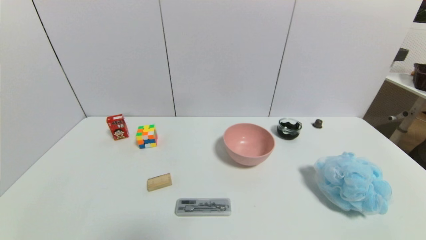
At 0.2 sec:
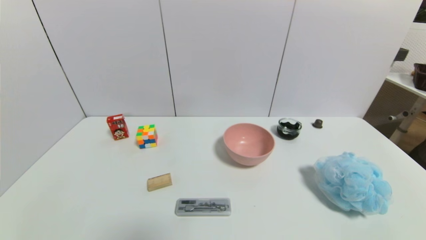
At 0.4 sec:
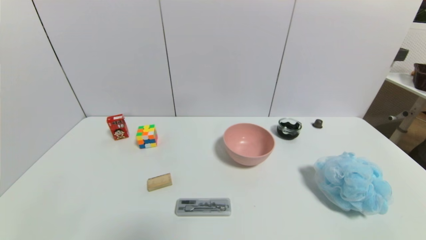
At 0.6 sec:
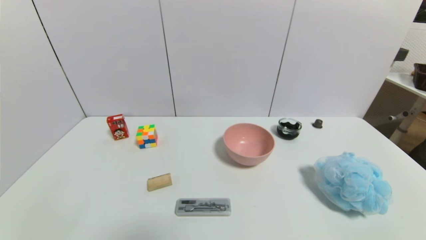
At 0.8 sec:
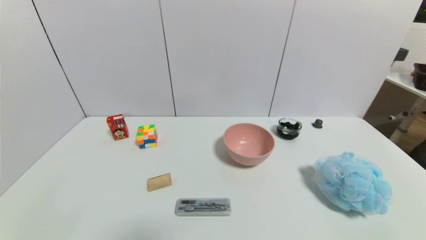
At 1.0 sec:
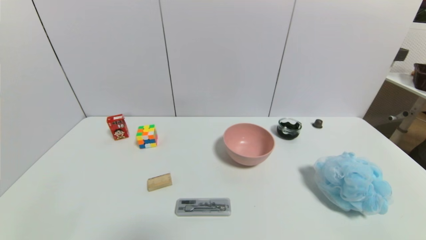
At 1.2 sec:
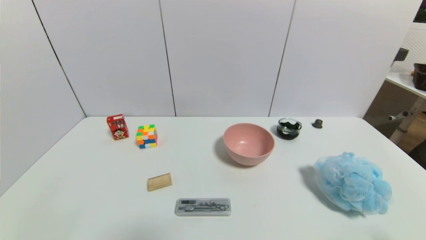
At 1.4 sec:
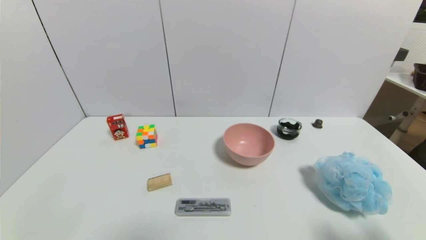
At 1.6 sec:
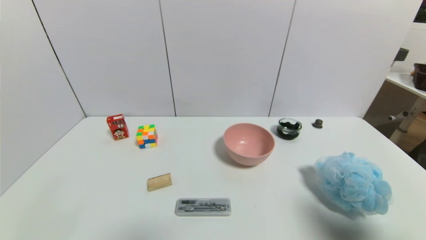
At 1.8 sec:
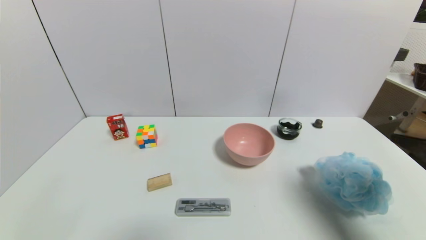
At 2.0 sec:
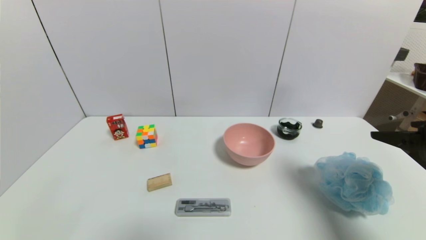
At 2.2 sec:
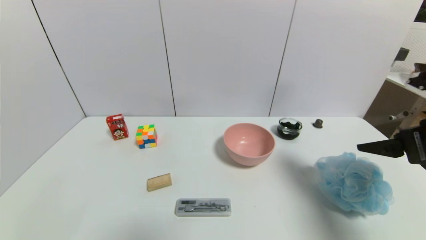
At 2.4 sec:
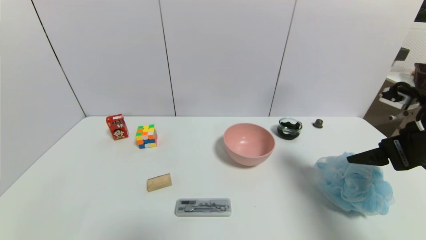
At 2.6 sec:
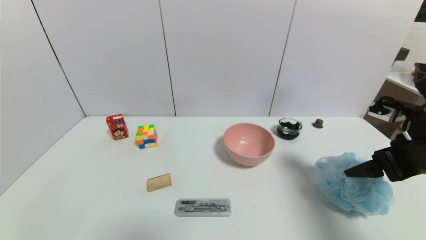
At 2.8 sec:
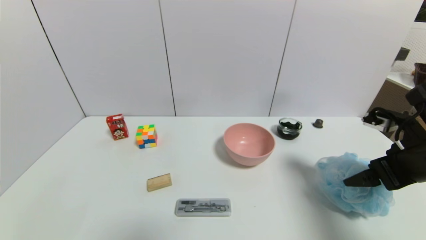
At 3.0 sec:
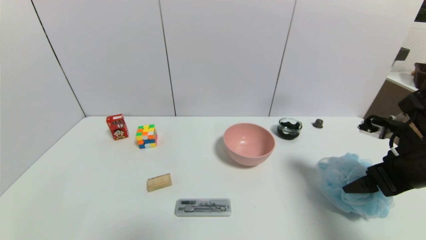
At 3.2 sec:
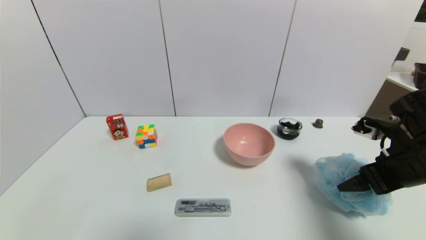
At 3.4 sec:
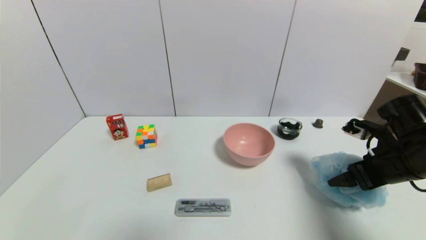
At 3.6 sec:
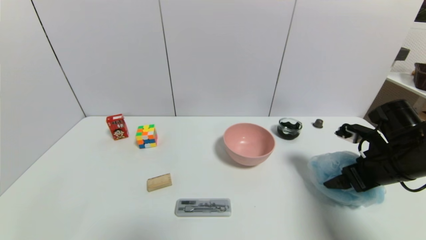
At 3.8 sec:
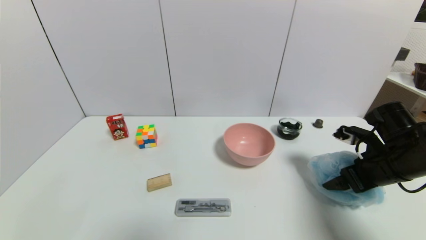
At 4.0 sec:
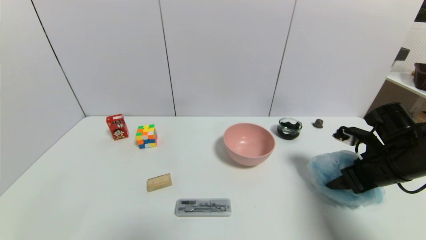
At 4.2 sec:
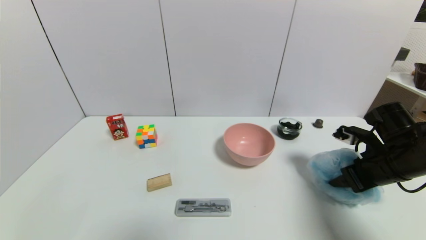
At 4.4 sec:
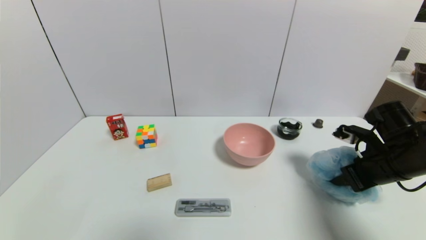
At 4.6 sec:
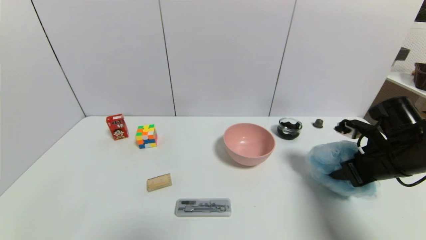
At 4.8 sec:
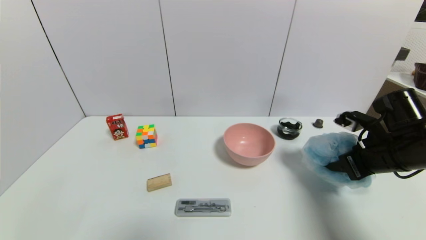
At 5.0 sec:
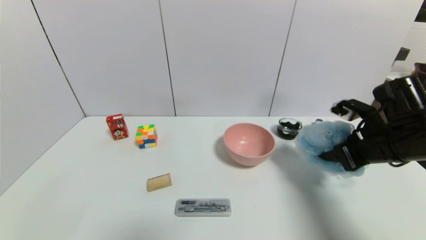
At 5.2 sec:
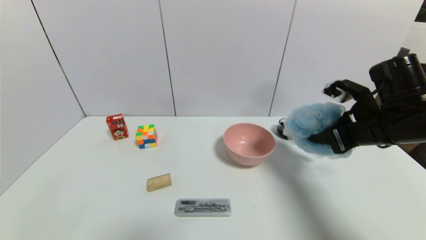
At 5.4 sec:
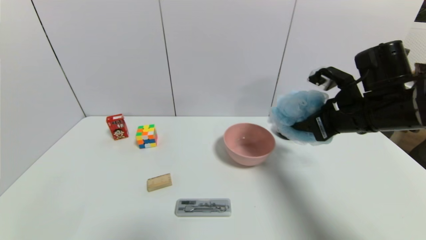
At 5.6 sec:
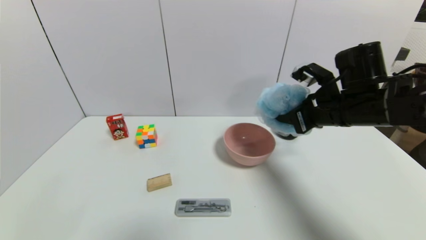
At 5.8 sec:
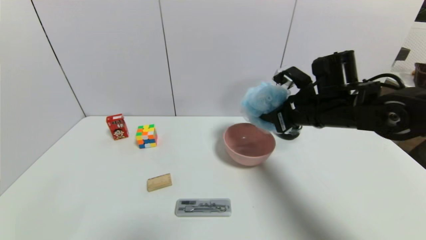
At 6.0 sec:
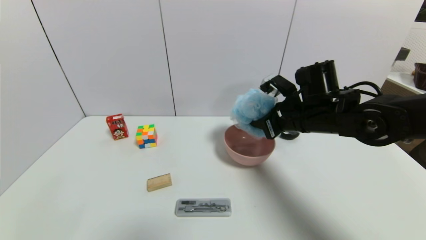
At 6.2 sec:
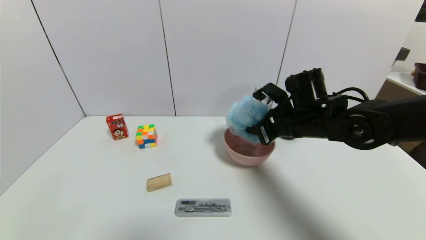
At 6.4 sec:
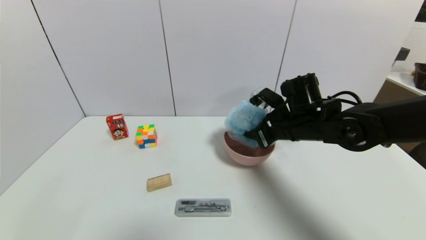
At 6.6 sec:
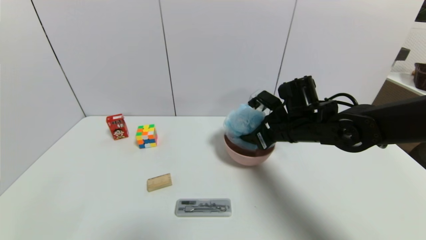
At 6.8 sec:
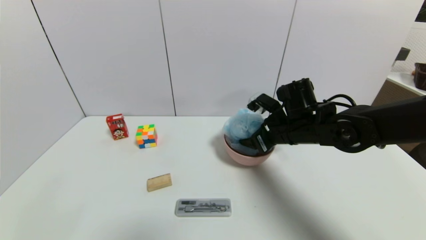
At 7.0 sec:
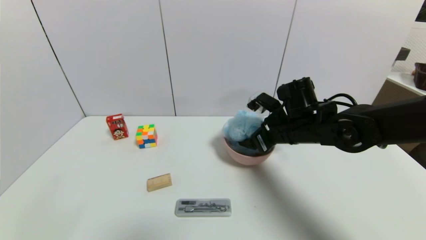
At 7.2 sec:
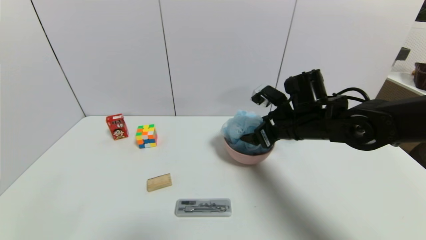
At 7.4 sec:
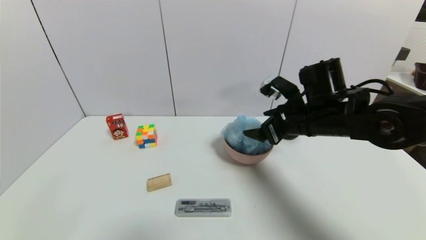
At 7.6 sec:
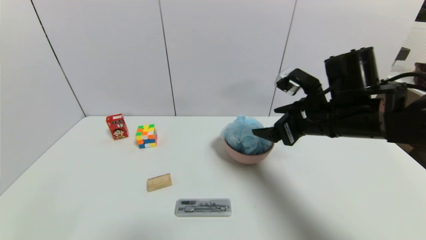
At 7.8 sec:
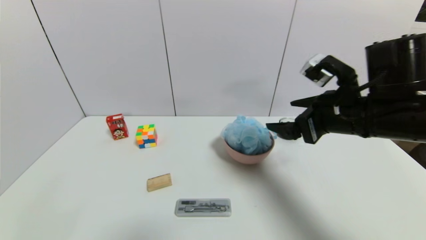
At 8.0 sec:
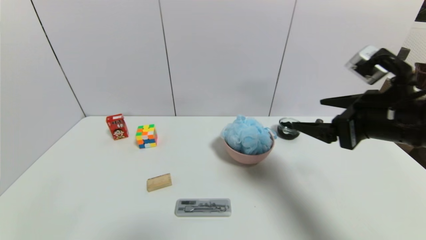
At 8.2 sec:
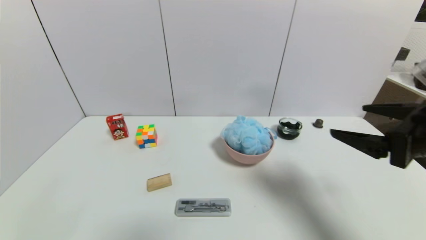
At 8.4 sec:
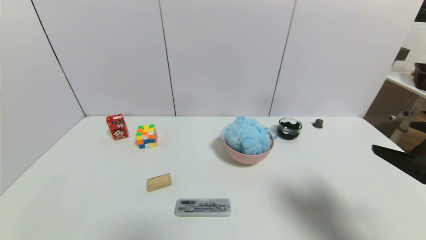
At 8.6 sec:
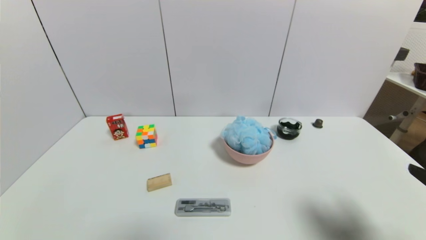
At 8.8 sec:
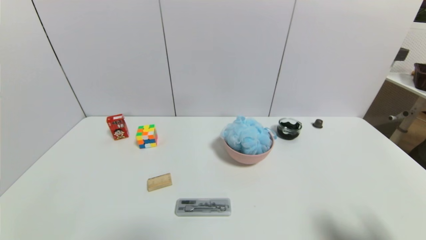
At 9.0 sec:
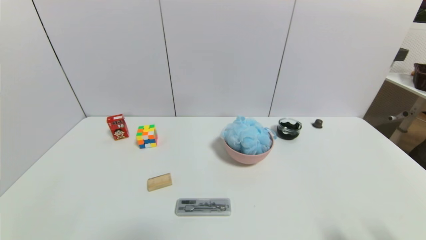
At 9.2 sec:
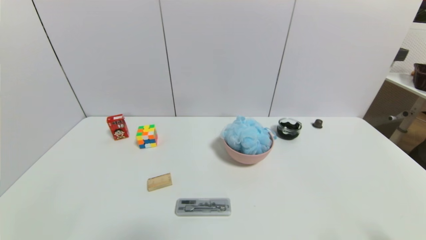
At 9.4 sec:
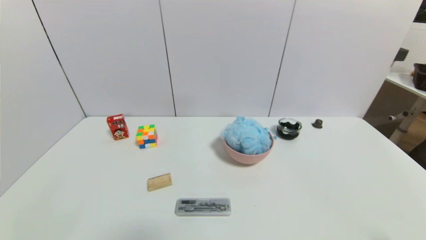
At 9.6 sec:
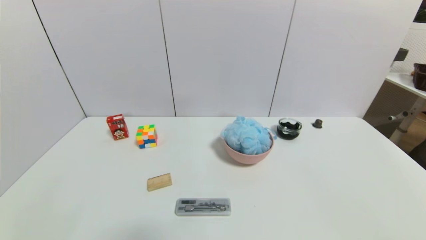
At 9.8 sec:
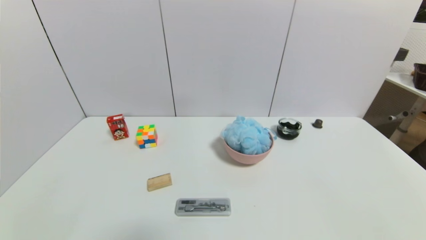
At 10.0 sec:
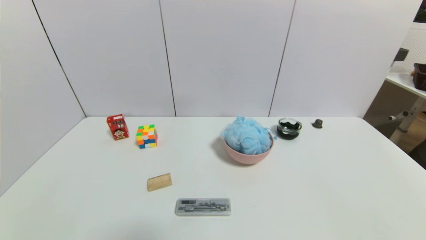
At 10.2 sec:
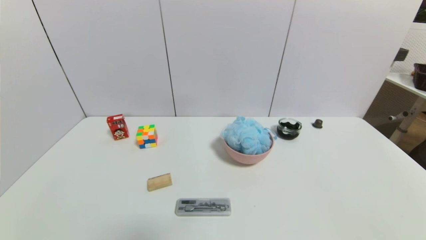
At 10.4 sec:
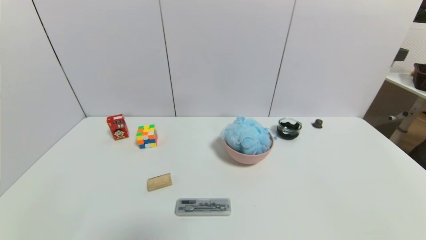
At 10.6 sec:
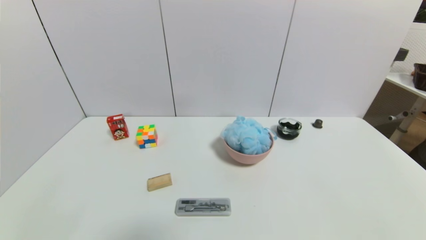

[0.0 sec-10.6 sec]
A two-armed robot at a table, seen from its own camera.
Task of the whole recording: use a gripper to pick the target object and place on the pink bowl.
Step, 0.0 sec to 4.2 sec: Grasp the shower sphere with the right gripper.
Step, 4.4 sec to 7.2 sec: Place the shower sphere on the pink bowl with the right gripper.
0.0 sec to 1.6 sec: The right gripper shifts approximately 20 cm upward and forward.
1.6 sec to 3.0 sec: The right gripper heads forward, covering about 15 cm.
3.0 sec to 4.6 sec: The right gripper moves approximately 5 cm, and closes its fingers.
4.6 sec to 6.0 sec: The right gripper moves to the left and forward, some 15 cm.
6.0 sec to 7.6 sec: The right gripper travels backward by roughly 5 cm, and opens its fingers.
7.6 sec to 9.0 sec: The right gripper moves backward and to the right, about 30 cm.
